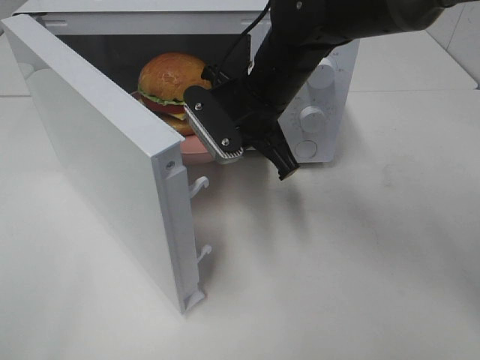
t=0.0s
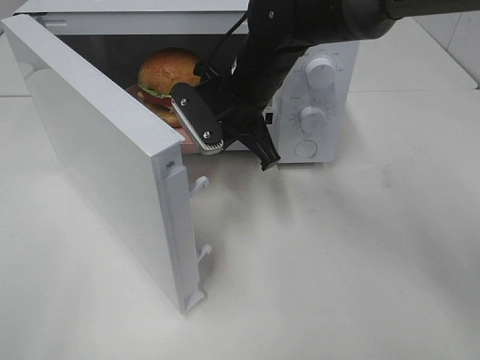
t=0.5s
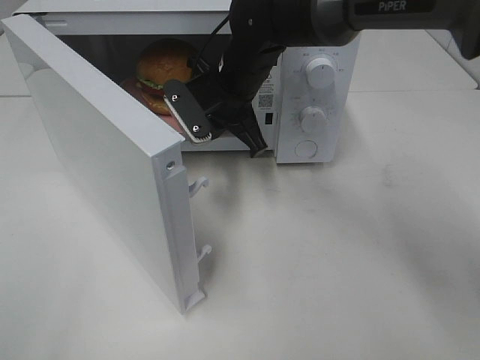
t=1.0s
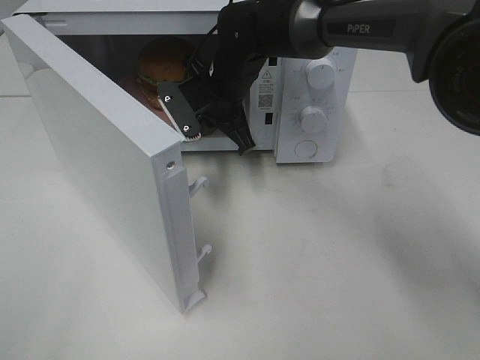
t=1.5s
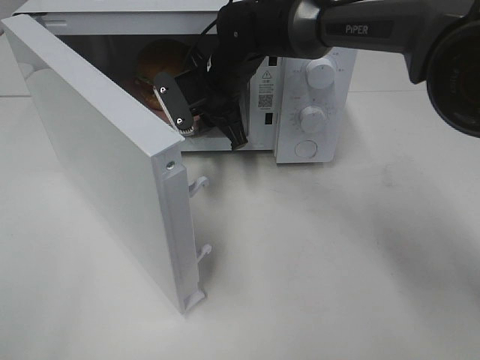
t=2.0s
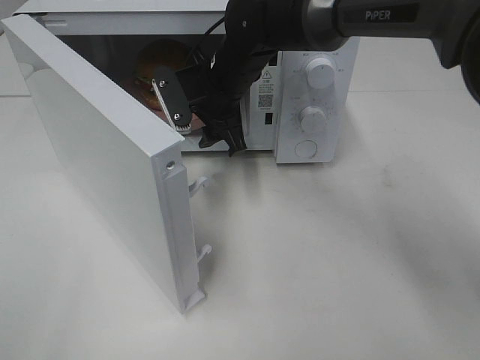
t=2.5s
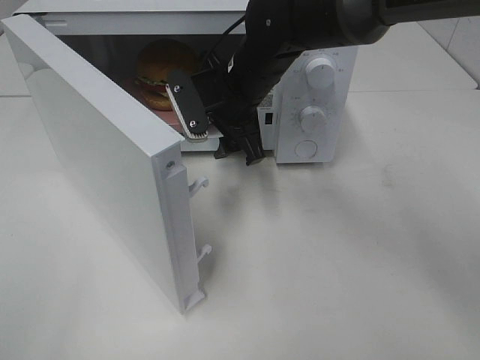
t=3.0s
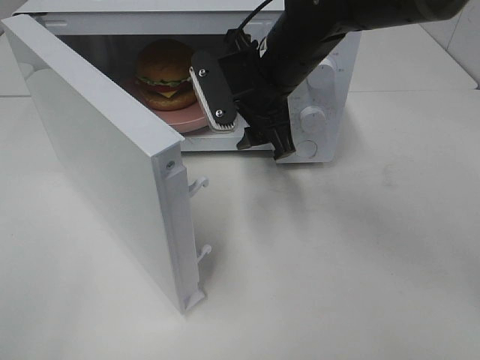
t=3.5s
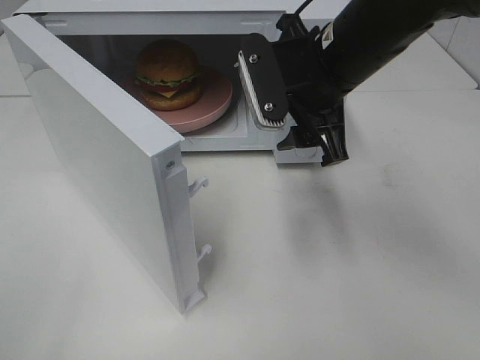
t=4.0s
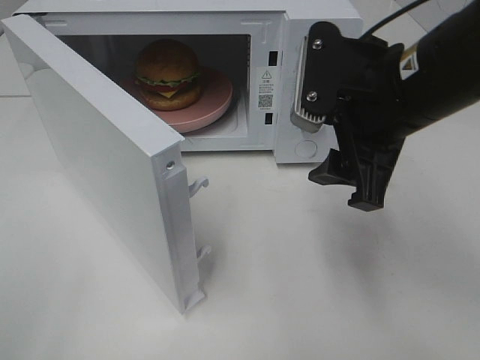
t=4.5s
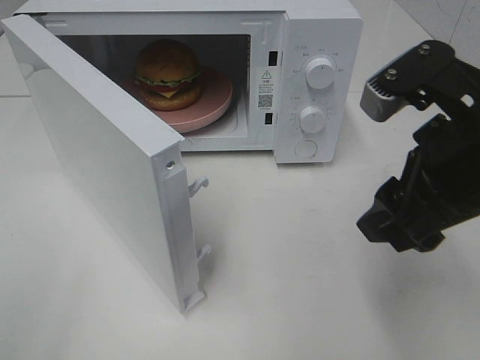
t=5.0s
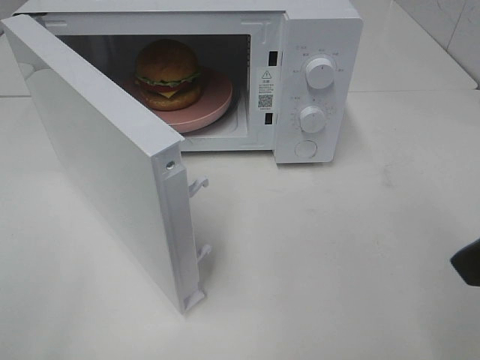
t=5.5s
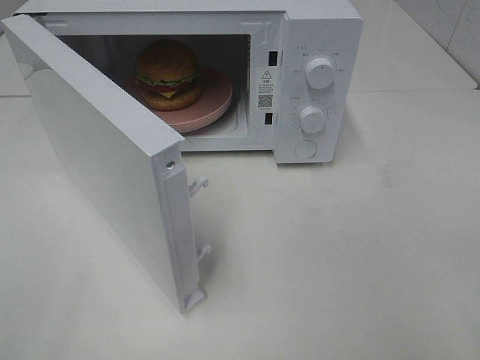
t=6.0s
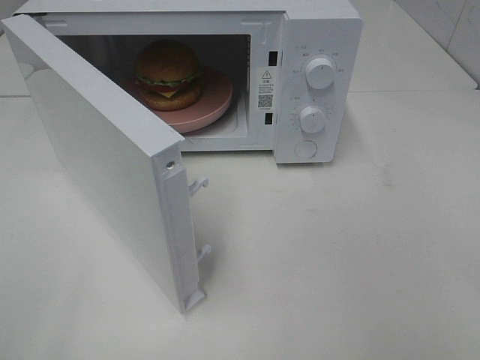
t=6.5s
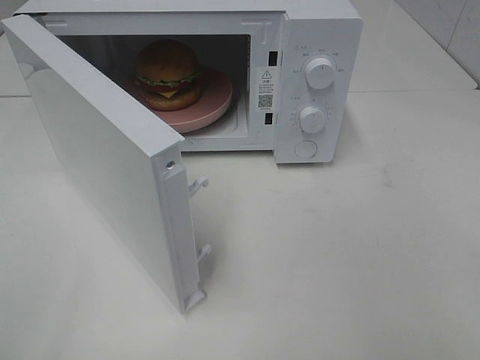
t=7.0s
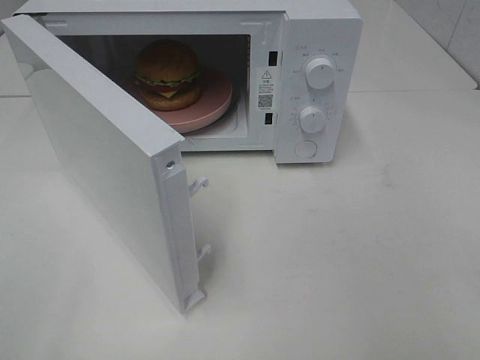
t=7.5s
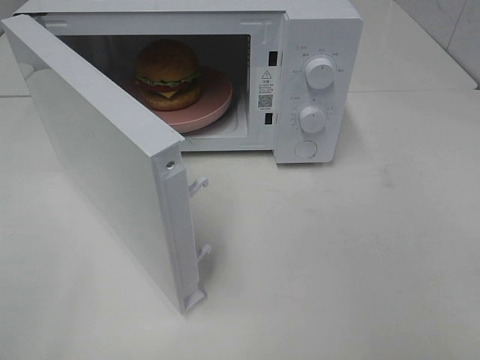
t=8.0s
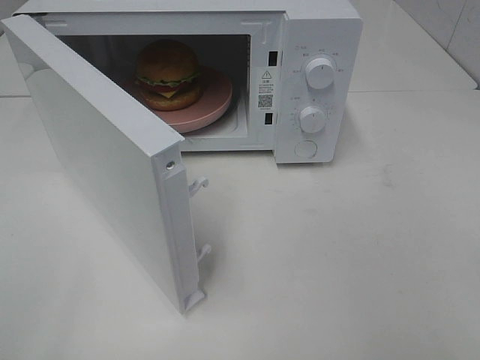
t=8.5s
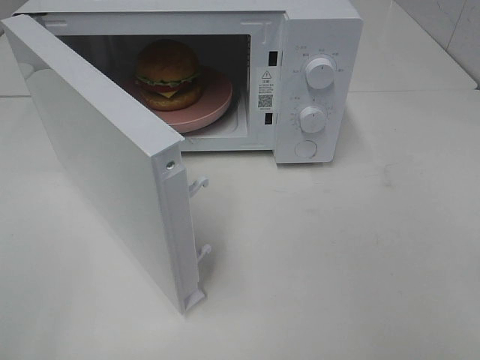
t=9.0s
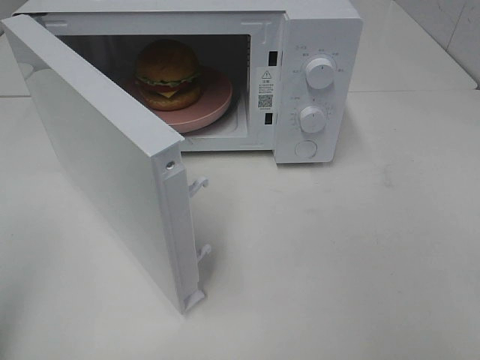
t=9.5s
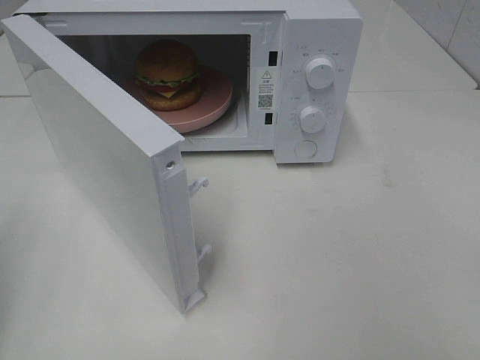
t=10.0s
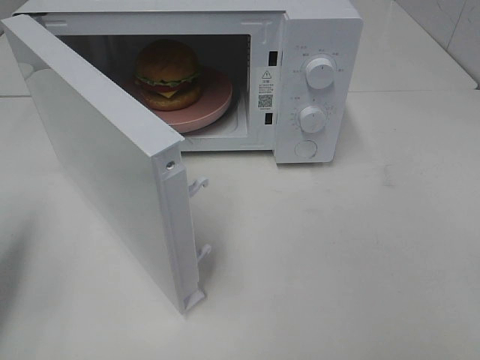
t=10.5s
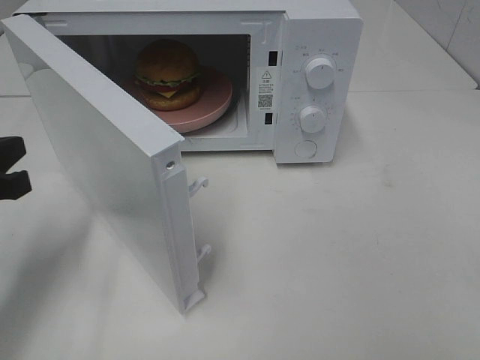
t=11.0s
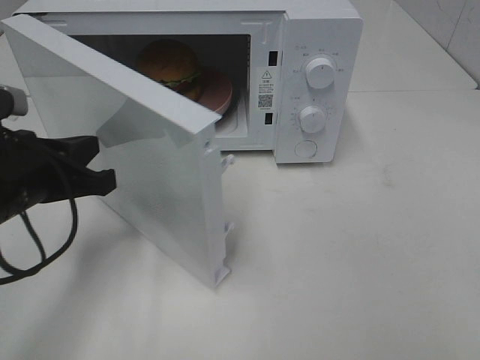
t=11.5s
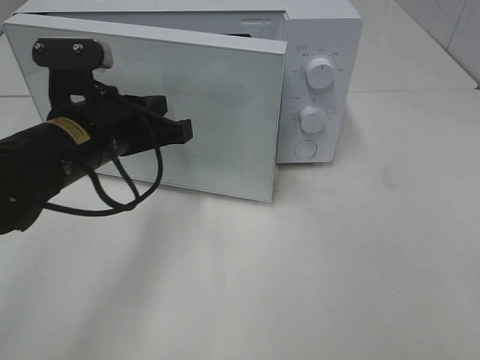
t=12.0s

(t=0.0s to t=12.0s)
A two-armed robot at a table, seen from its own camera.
Task of the whole recording: Heat the burger.
t=0.0s - t=2.0s: The right gripper heads forward, covering about 10 cm, and opens.
t=2.0s - t=4.0s: The right gripper shifts about 20 cm backward, to the right and upward, and opens up.
t=4.0s - t=6.0s: The right gripper travels backward and to the right by approximately 30 cm.
t=10.0s - t=12.0s: The left gripper travels to the right and forward by some 25 cm.

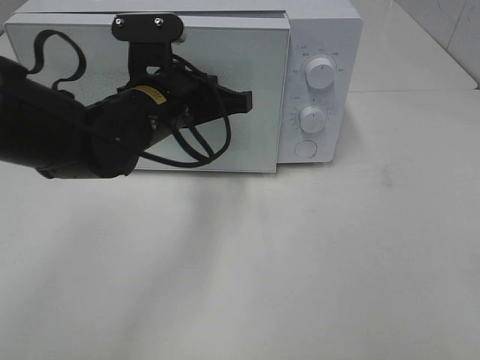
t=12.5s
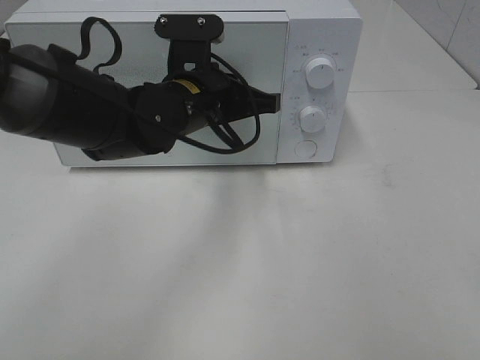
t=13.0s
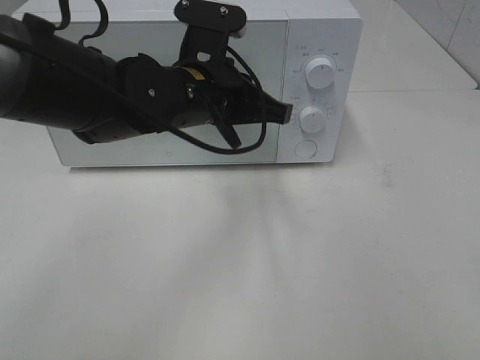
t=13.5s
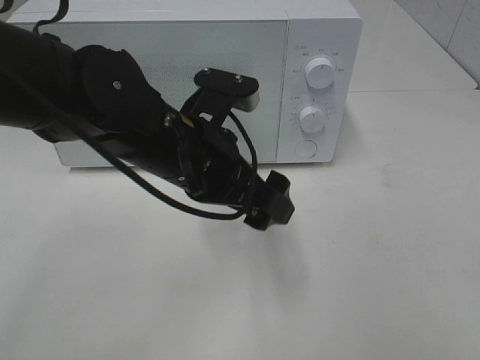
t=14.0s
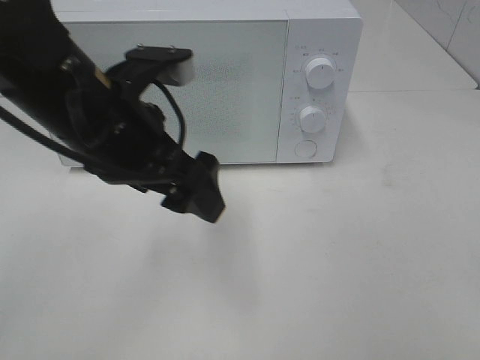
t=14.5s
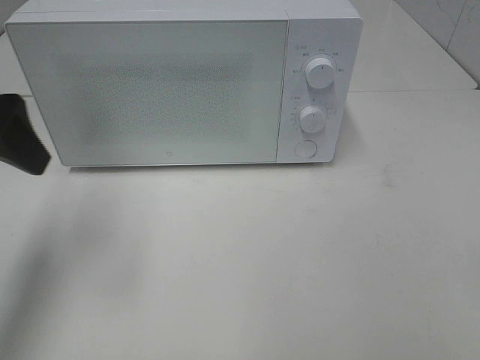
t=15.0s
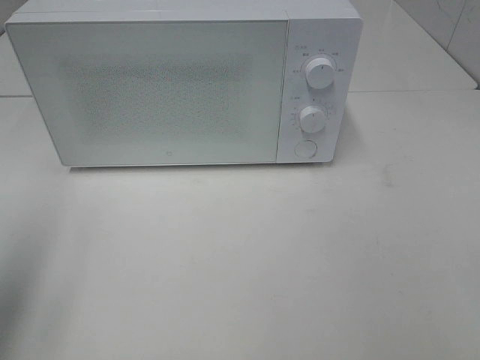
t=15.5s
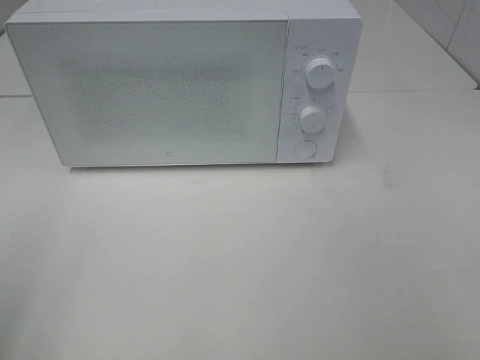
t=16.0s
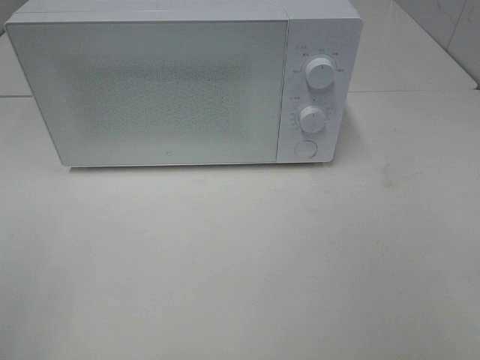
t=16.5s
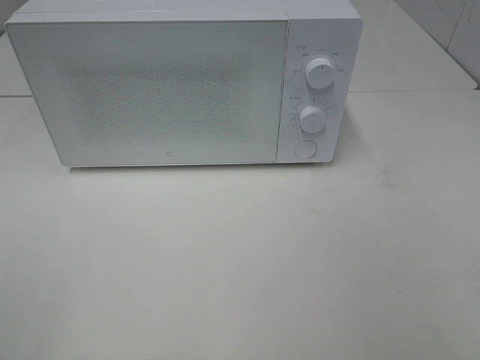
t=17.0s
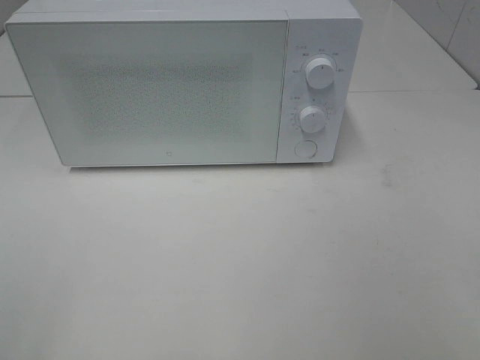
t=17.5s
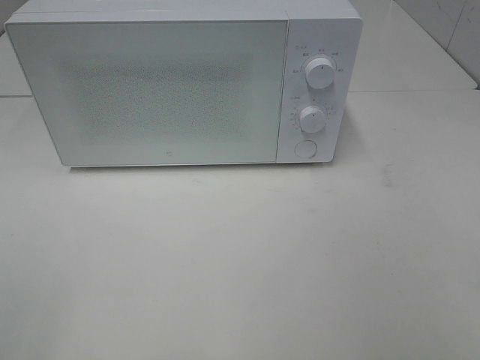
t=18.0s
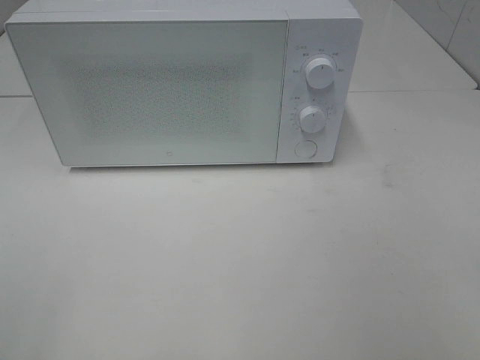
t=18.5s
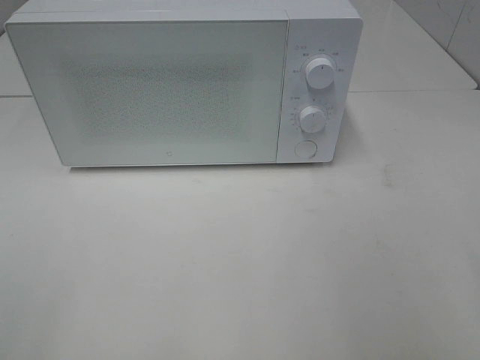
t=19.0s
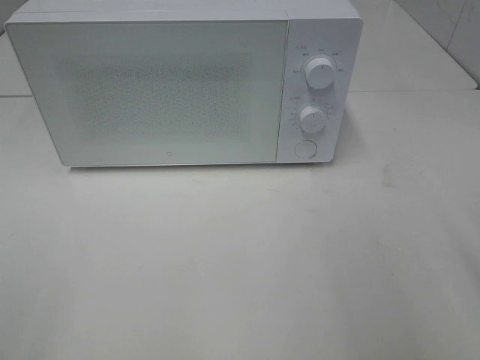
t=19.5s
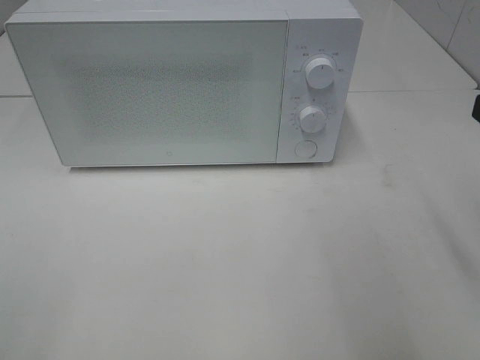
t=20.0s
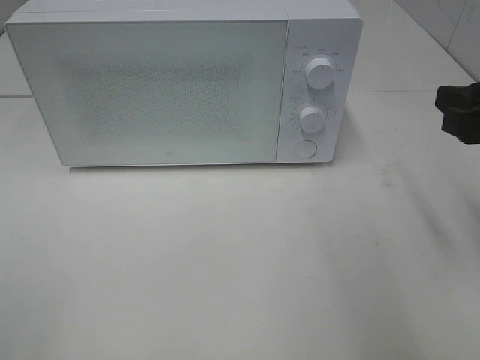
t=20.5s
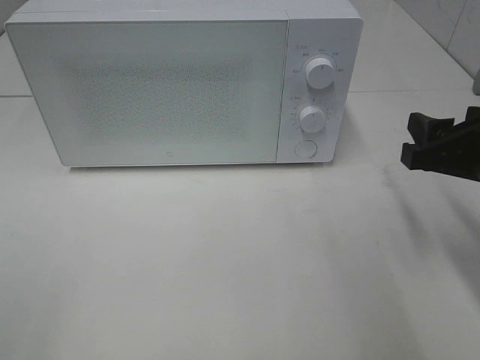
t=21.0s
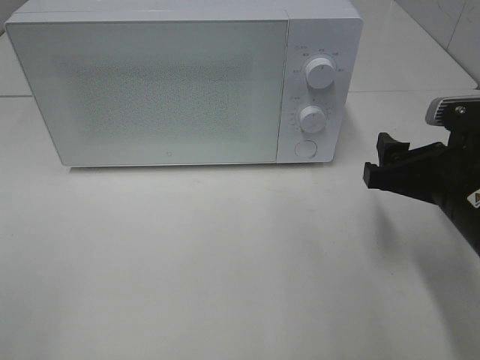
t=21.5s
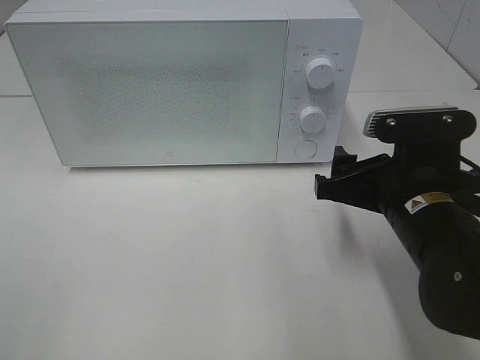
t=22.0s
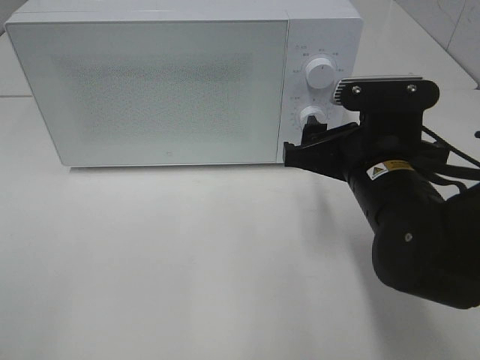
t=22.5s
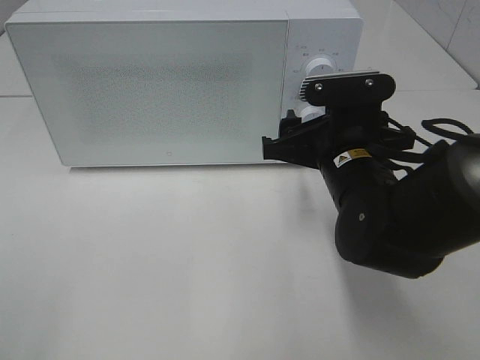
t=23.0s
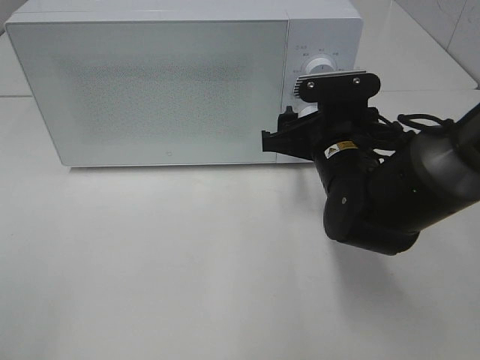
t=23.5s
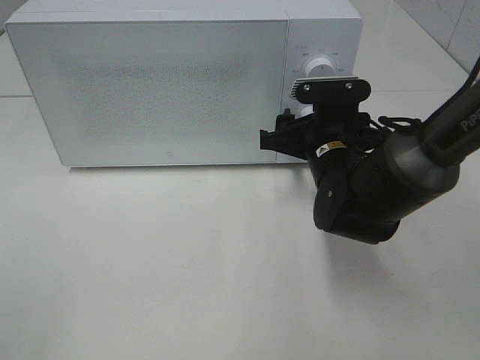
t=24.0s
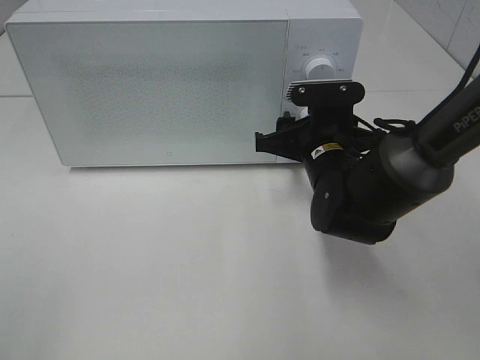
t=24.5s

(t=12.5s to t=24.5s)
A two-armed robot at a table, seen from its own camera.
Task of the whole recording: Heat the burger.
t=12.5s - t=14.5s: The left gripper goes some 10 cm backward and upward, and opens up.
t=14.5s - t=16.5s: The left gripper travels backward and to the left by about 30 cm.
t=18.5s - t=20.5s: The right gripper travels forward by some 20 cm.
t=20.5s - t=22.5s: The right gripper goes about 15 cm to the left and downward.
t=22.5s - t=24.5s: The right gripper shifts some 10 cm forward and downward.

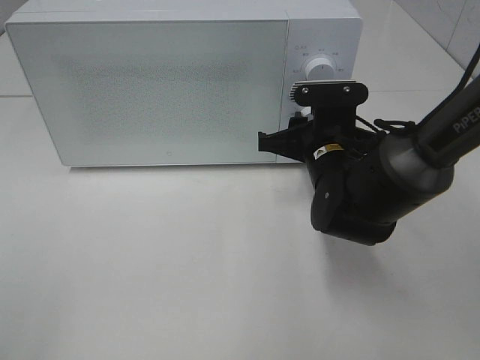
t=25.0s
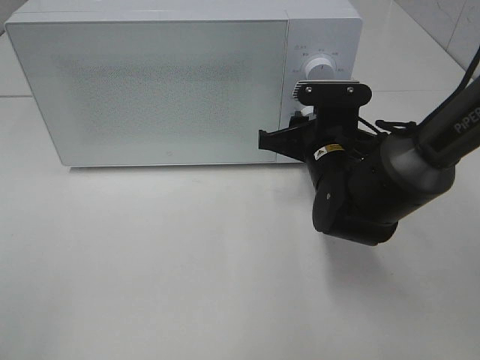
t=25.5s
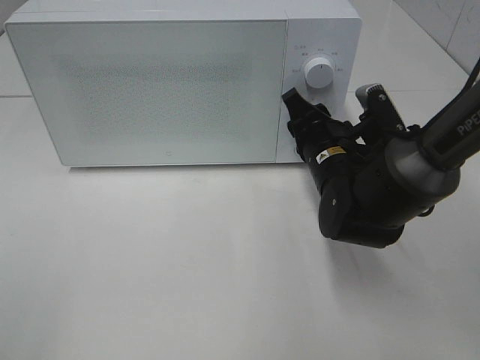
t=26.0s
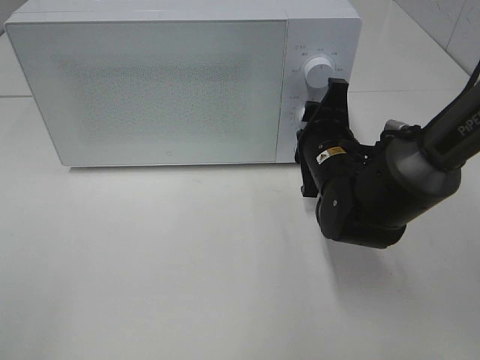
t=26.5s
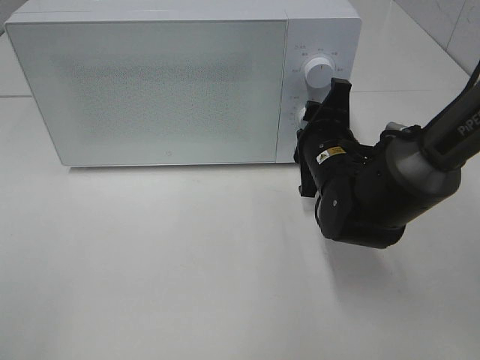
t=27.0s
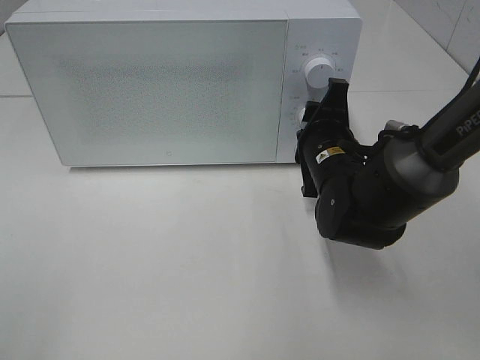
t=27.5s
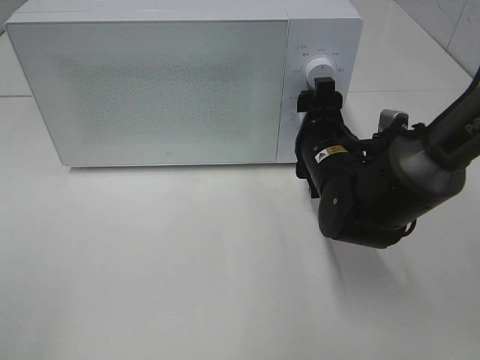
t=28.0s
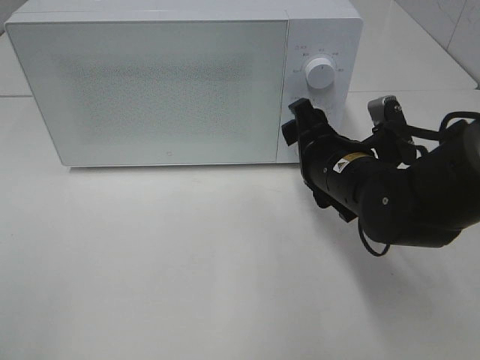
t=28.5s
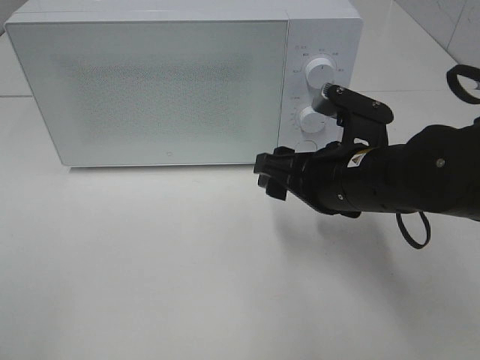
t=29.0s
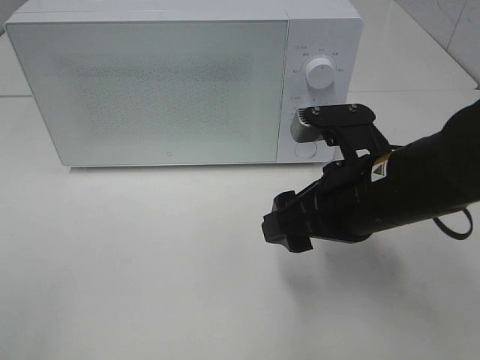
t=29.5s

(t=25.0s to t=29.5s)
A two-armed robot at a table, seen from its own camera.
Task of the whole recording: Heat the burger.
Step, t=25.0s - t=27.5s: Right hand: twist timer button.
t=27.0s - t=29.5s: The right gripper is displaced backward and upward by about 15 cm.
